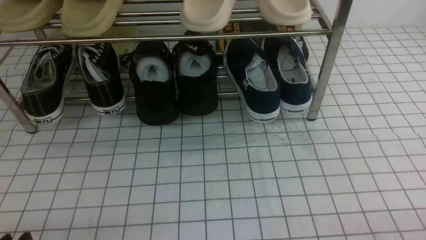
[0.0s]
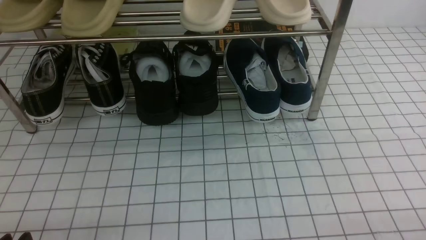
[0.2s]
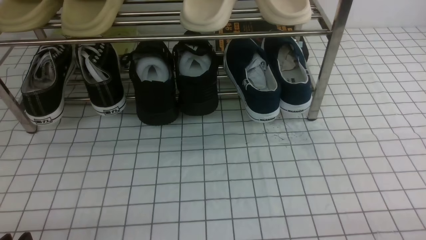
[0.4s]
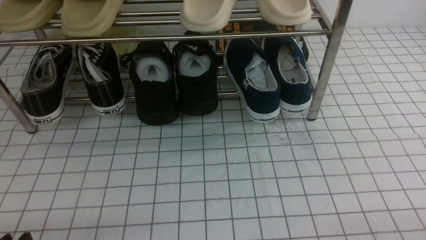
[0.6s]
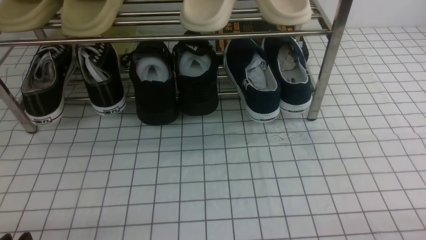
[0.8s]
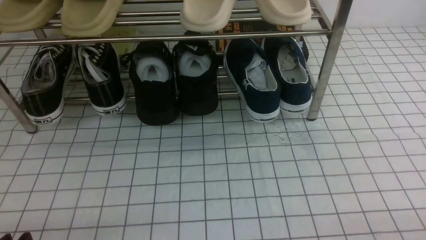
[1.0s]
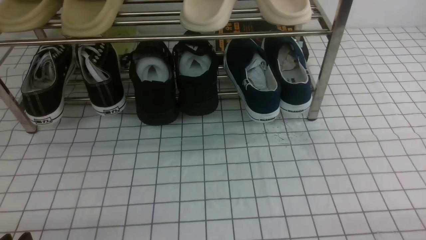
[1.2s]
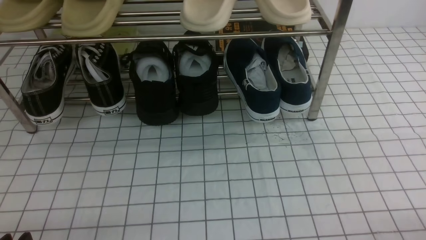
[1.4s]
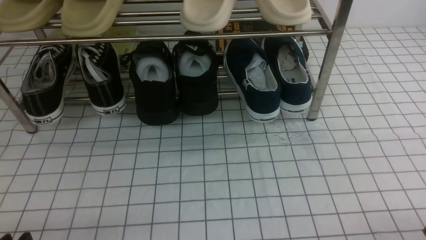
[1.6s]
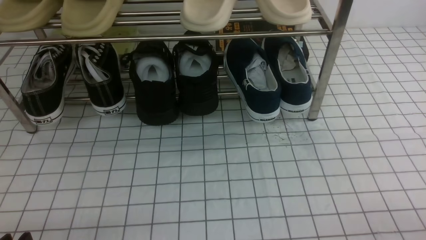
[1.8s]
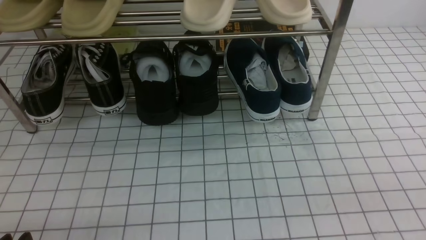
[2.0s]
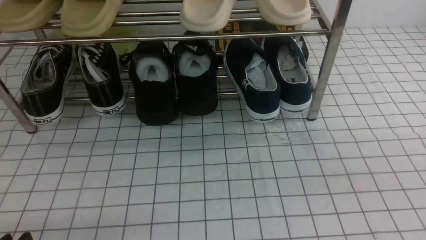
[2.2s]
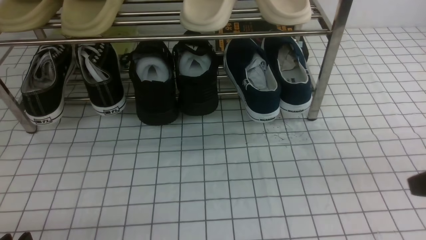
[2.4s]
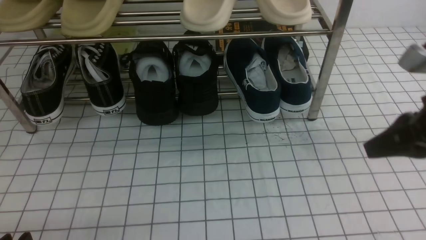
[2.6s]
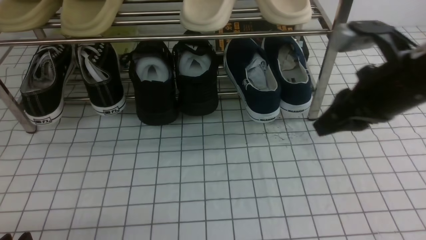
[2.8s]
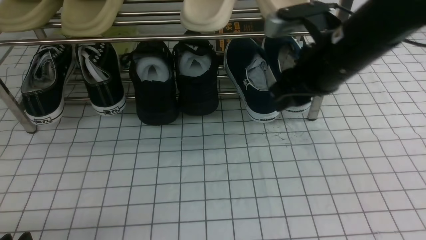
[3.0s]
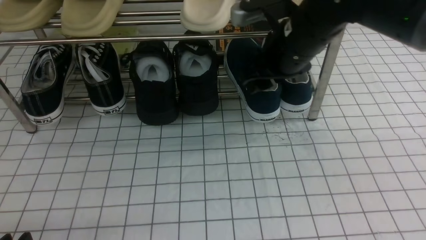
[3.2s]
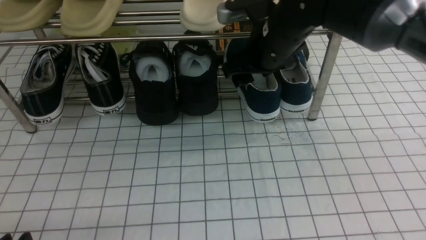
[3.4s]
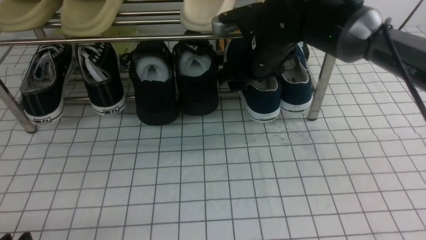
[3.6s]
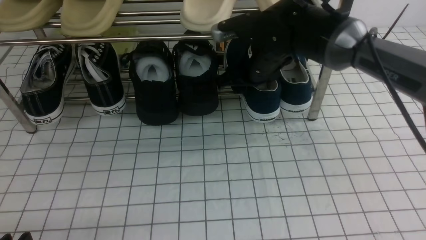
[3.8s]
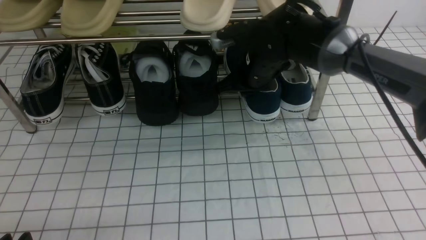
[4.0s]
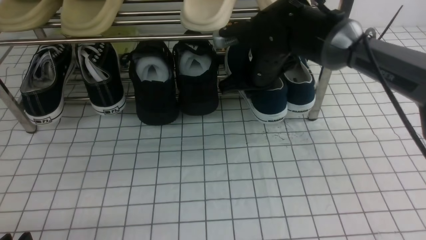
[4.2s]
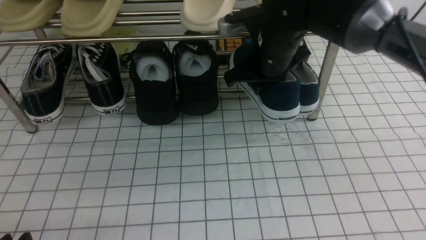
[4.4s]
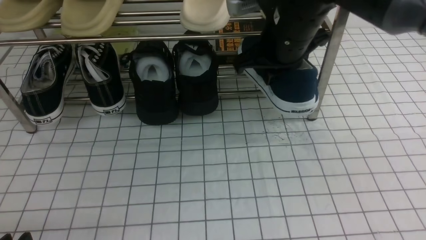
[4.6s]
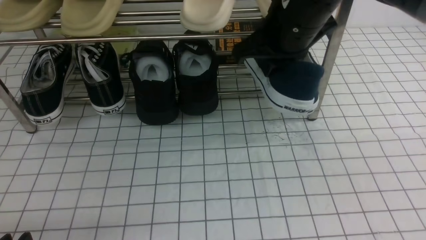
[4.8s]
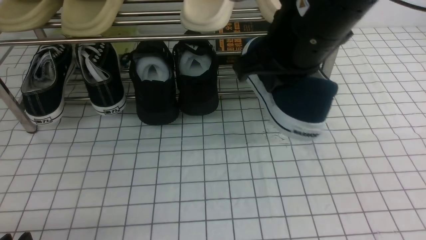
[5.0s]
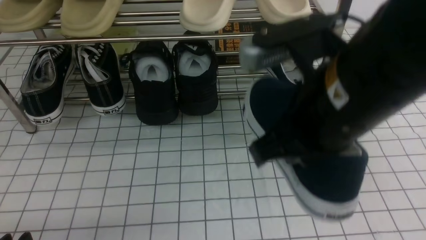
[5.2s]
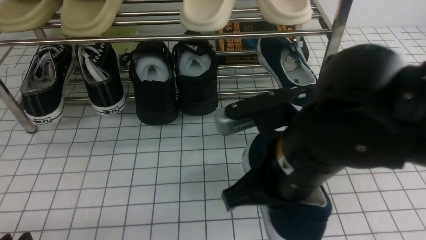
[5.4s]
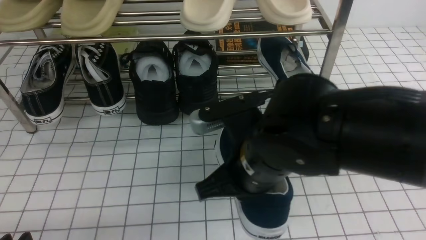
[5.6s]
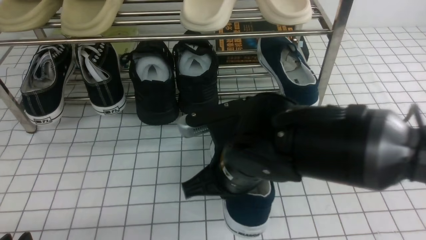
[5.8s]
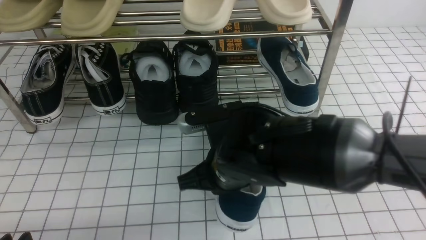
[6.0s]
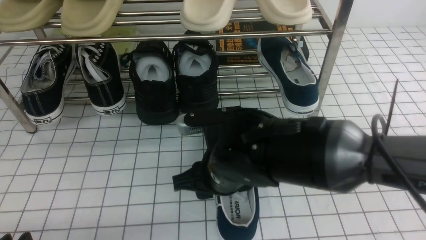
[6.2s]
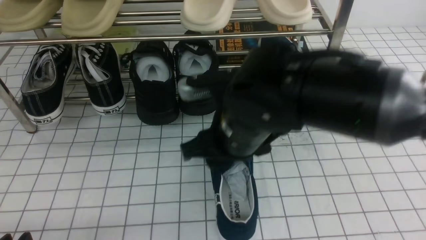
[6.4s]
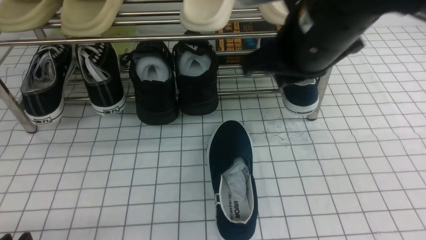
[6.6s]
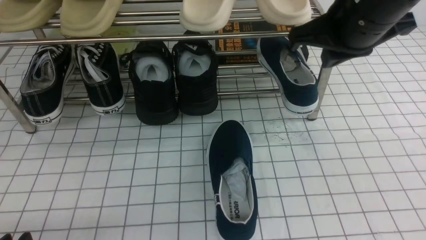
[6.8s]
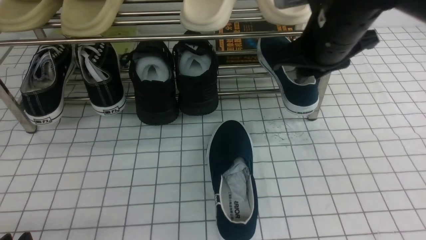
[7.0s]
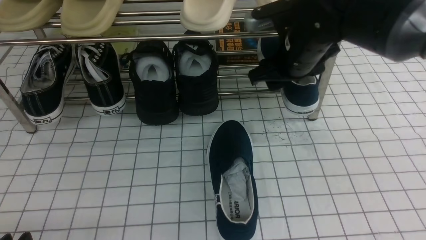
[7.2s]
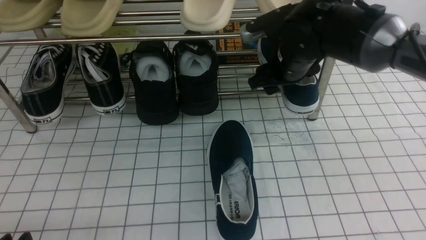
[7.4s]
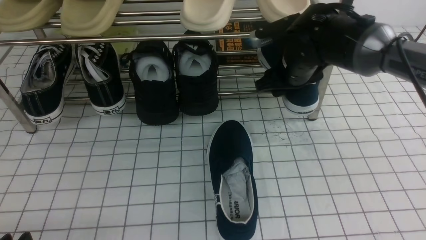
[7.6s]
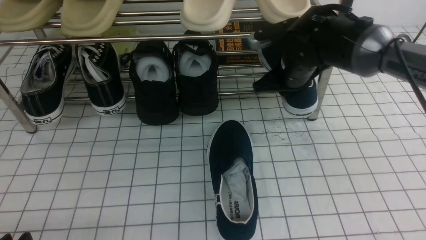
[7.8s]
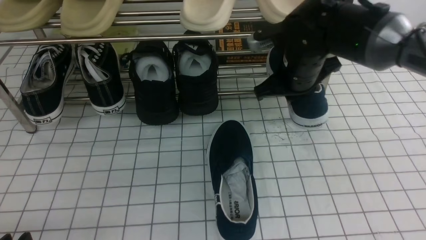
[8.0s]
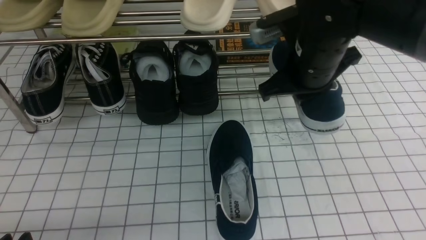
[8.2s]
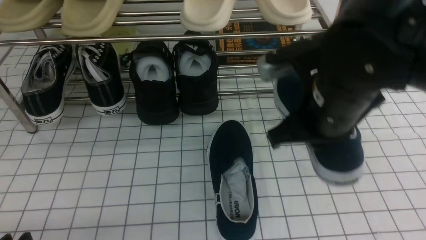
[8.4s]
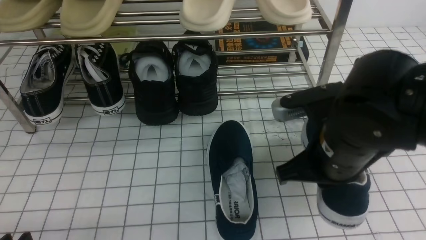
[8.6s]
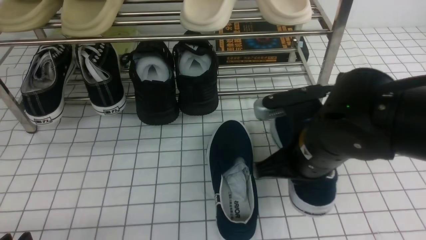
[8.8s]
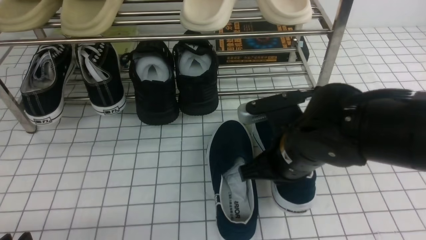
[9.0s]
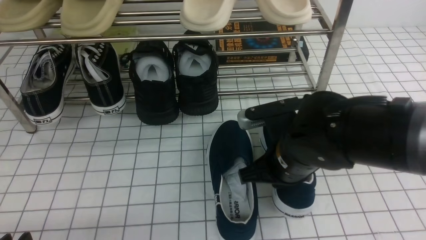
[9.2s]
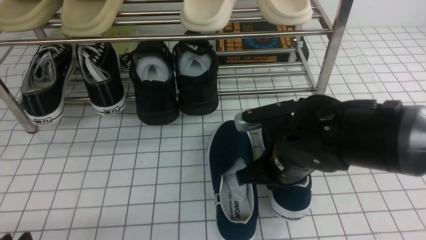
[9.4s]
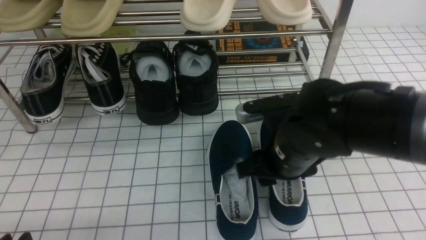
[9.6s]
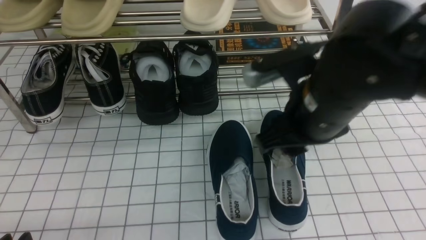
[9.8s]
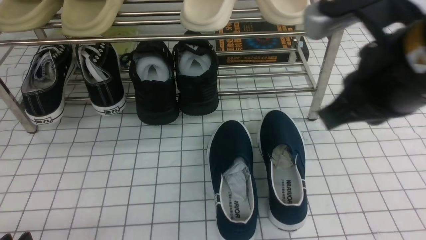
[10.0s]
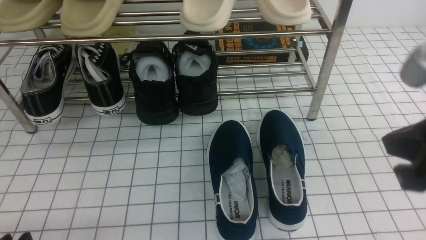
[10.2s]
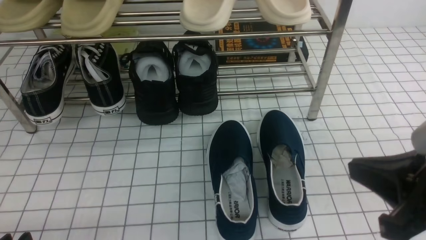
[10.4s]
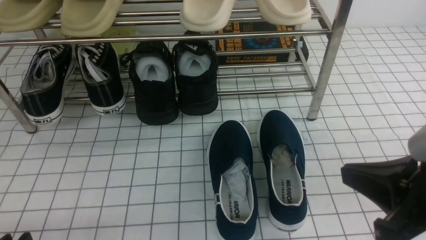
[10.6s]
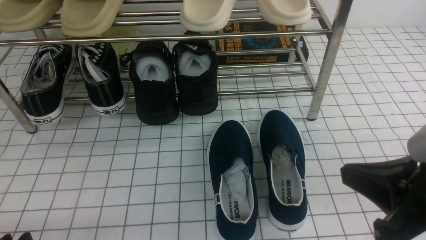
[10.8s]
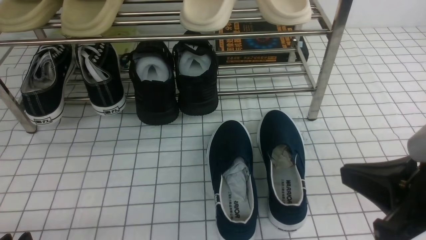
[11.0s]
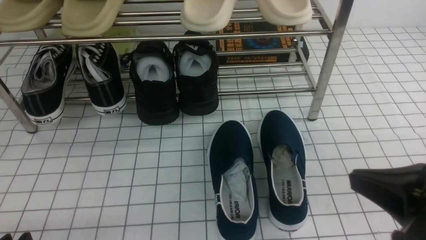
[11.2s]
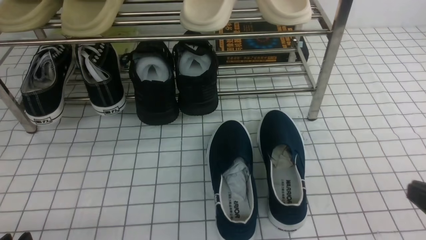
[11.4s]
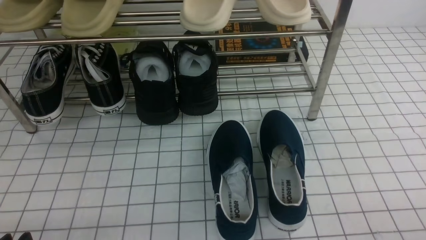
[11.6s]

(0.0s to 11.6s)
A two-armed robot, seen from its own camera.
Step, 0.0s - 3.8s: use the right arm to clamp a shoe on the right side of the shoe rack.
Step, 4.0s - 6.4s: use the right arm to take out the clamped shoe from the shoe rack and put it down.
Step, 6.6s - 7.8s: use the right arm to clamp a shoe on the right side of the shoe rack.
Step, 8.0s - 9.8s: use the right arm to take out the clamped shoe from the shoe rack and put it down.
1.4s - 2.8s: The right gripper goes about 30 cm forward, upward and to the left, and closes, then reopens.
2.8s - 4.4s: The right gripper goes approximately 15 cm to the left and forward, and closes up.
4.4s - 5.8s: The right gripper travels backward and downward by roughly 15 cm.
5.8s - 7.2s: The right gripper goes roughly 20 cm forward and to the right, and opens up.
7.2s - 8.8s: The right gripper is displaced backward by some 15 cm, and closes its fingers.
8.8s - 10.2s: The right gripper moves upward, to the right and backward, roughly 15 cm, and opens, then closes once more.
10.2s - 11.6s: The right gripper travels downward, to the right and backward by roughly 20 cm.

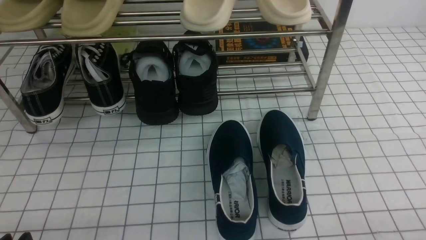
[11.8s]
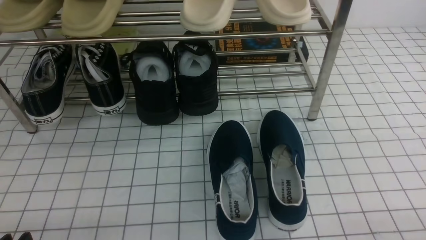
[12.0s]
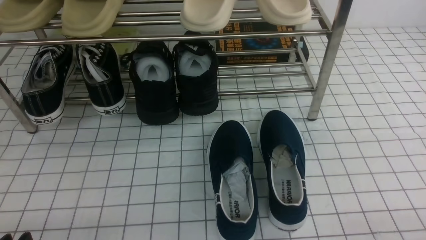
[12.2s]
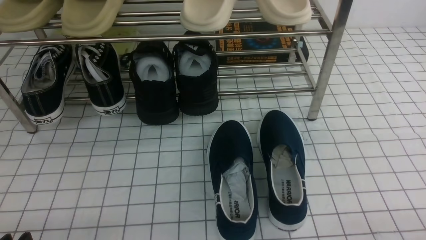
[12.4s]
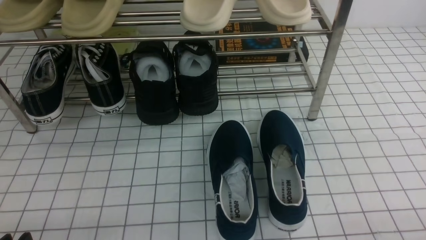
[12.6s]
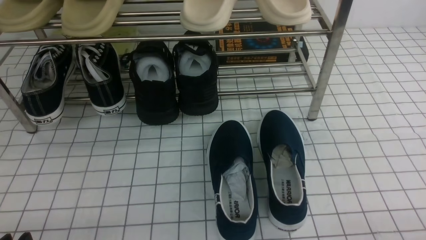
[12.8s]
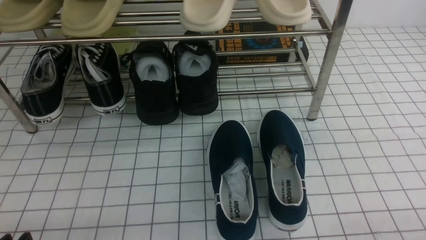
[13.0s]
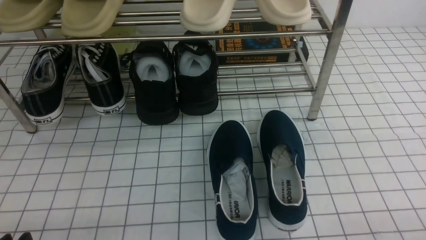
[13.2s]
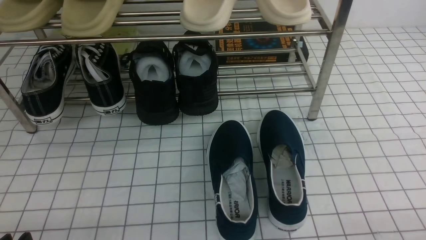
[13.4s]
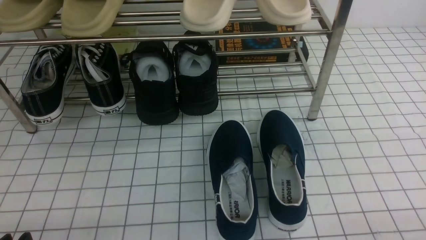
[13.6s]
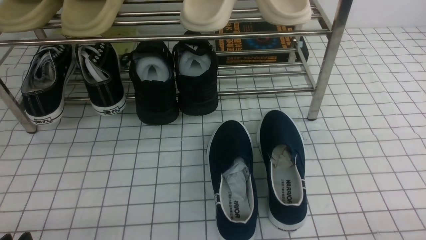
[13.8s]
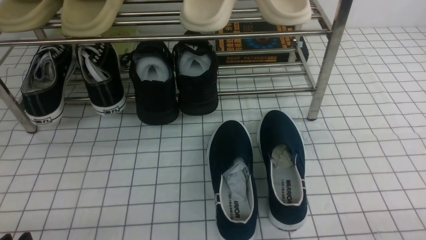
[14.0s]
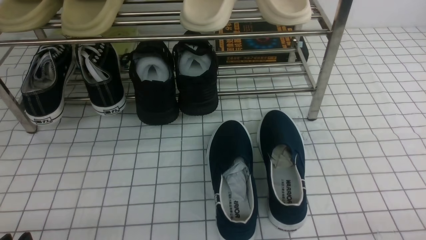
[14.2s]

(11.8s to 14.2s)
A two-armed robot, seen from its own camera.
11.8s - 14.2s: Neither gripper changes place.

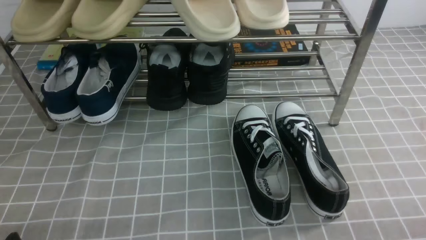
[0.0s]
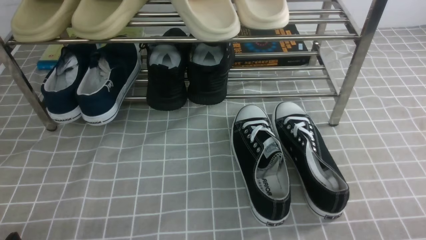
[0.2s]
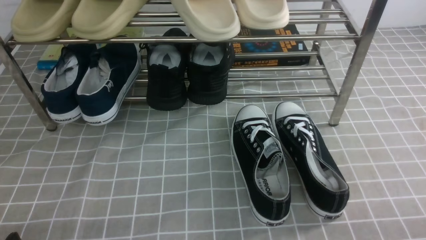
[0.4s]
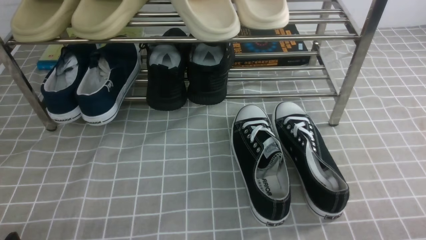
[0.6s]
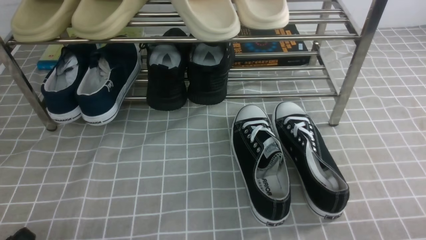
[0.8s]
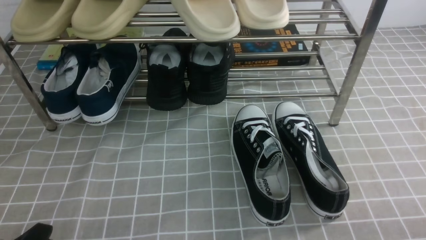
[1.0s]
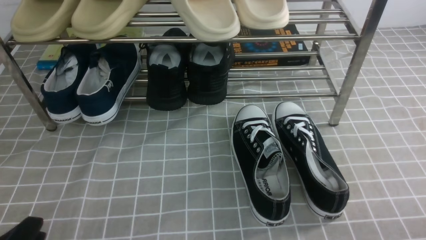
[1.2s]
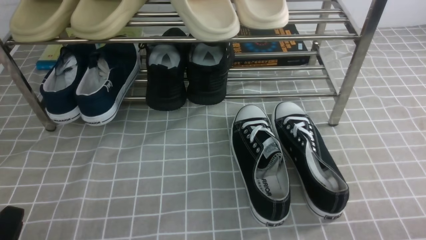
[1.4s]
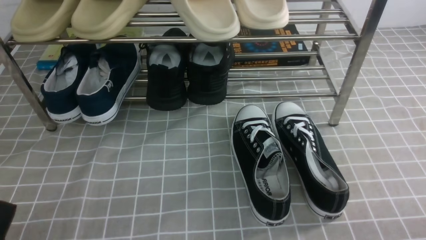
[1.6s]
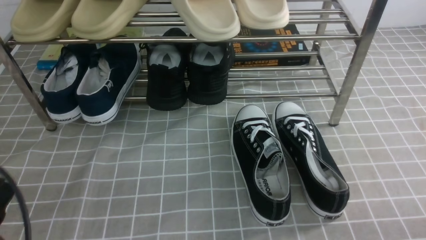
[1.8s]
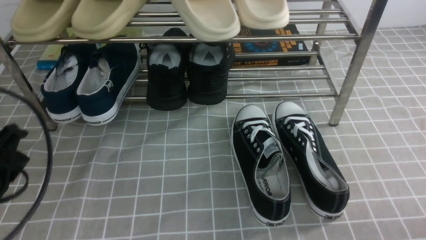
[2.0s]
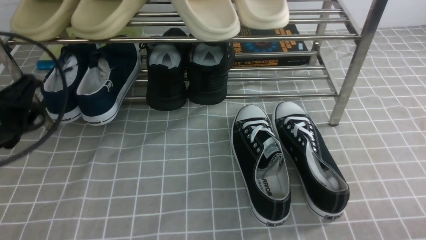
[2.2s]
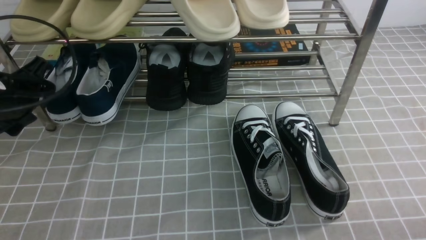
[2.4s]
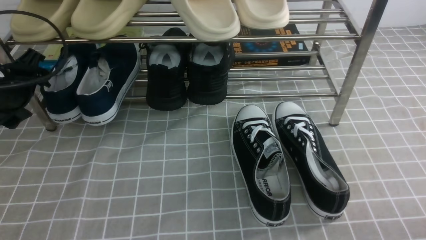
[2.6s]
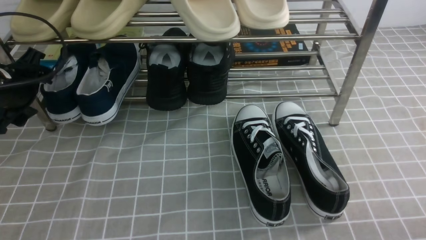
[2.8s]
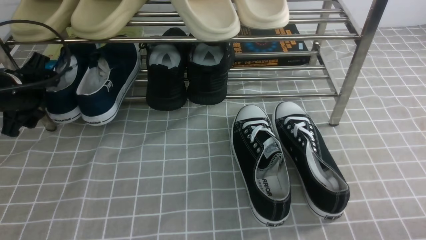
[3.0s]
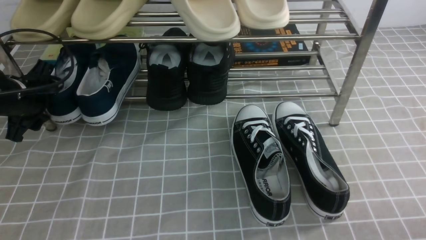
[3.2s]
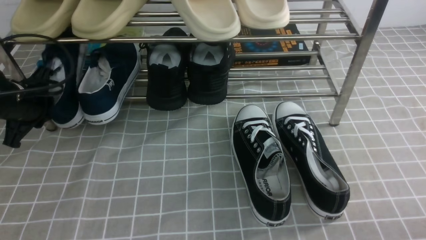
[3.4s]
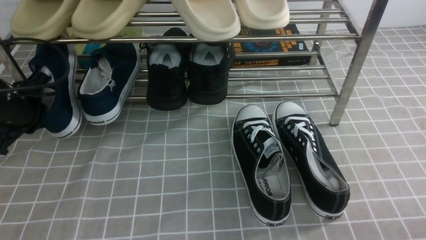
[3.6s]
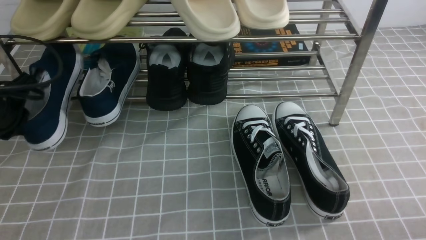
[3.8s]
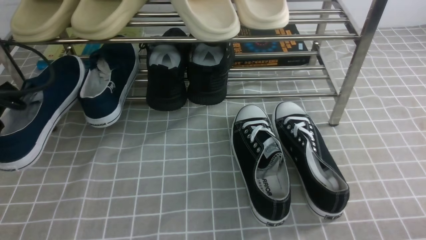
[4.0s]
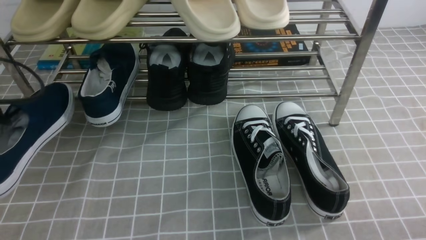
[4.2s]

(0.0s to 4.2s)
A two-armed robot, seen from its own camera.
Step, 0.0s - 3.4s: use the left arm to clamp a shoe on the left side of the shoe rack.
1.4s - 2.8s: The left gripper is displaced forward by some 30 cm, and opens up.
2.8s - 4.2s: The left gripper travels backward by approximately 10 cm, and closes up.
